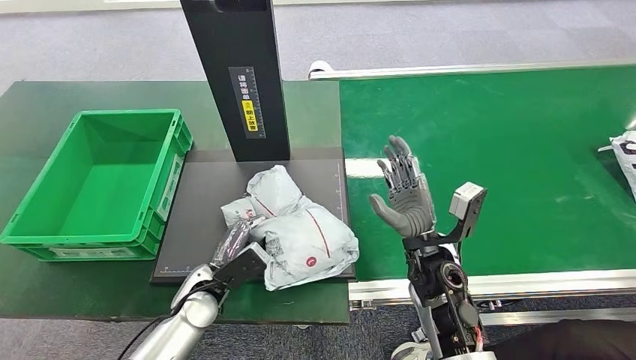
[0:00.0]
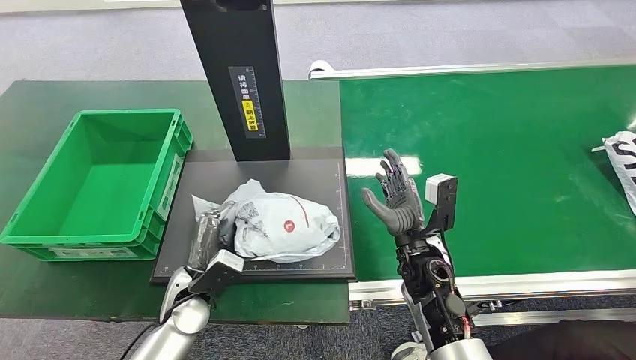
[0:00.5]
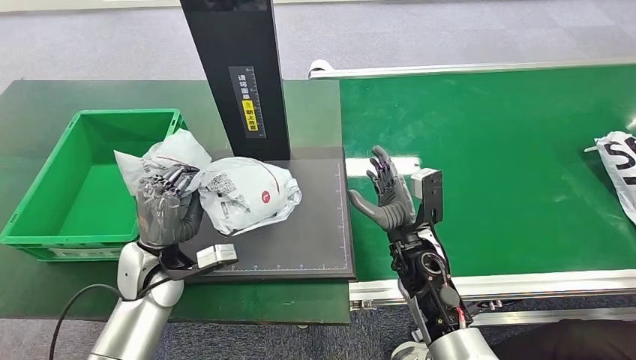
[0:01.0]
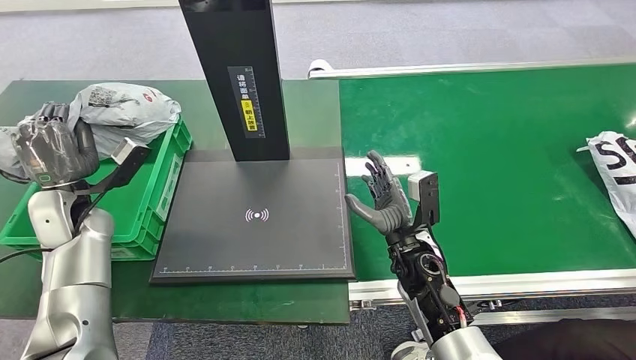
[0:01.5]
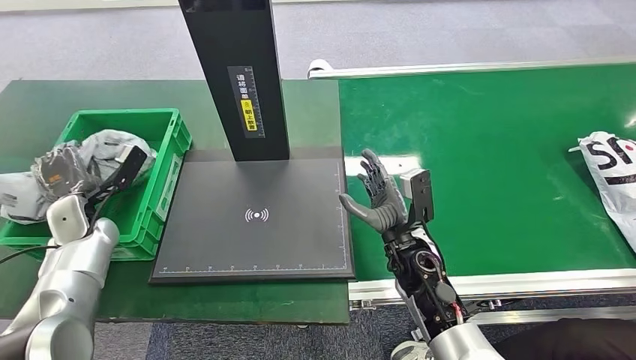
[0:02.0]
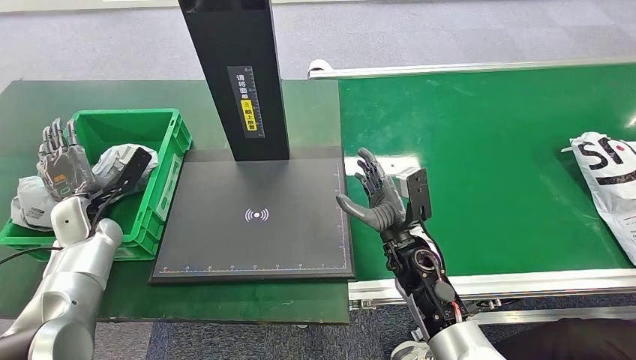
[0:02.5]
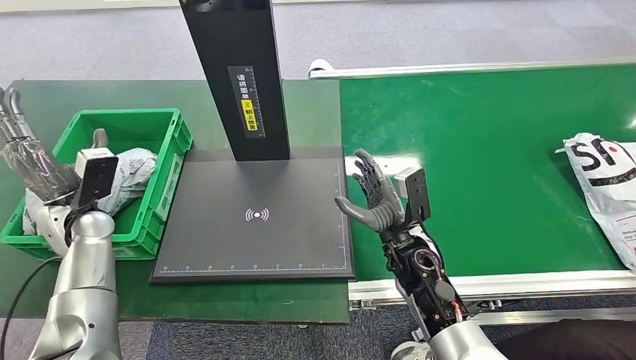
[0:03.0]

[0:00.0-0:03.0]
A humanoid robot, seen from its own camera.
Step, 0:01.5 to 0:03.0: Place the package into the parcel locker.
